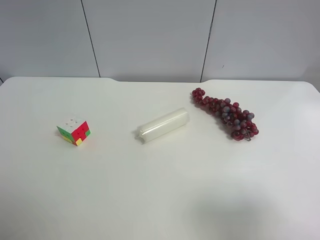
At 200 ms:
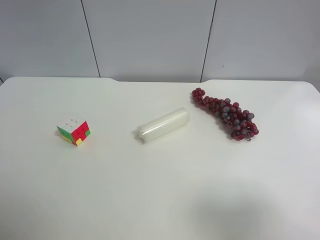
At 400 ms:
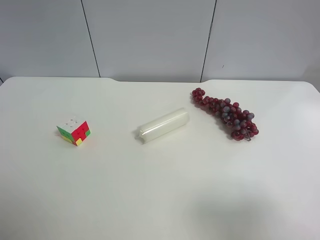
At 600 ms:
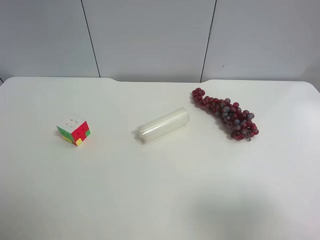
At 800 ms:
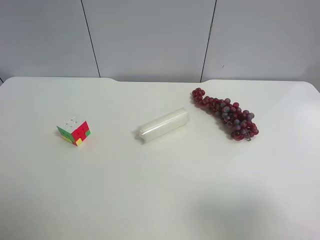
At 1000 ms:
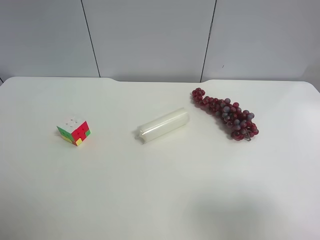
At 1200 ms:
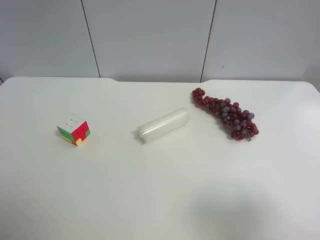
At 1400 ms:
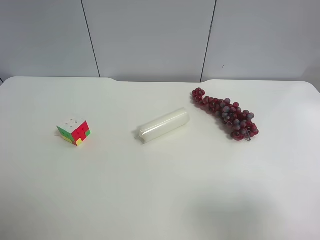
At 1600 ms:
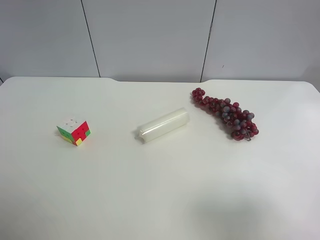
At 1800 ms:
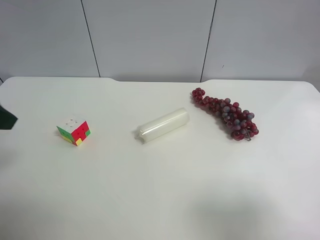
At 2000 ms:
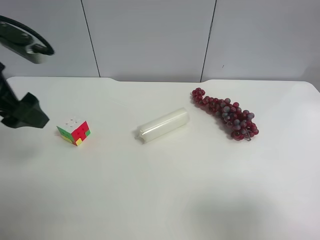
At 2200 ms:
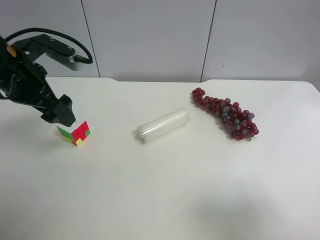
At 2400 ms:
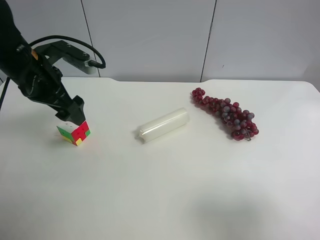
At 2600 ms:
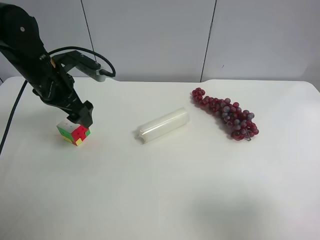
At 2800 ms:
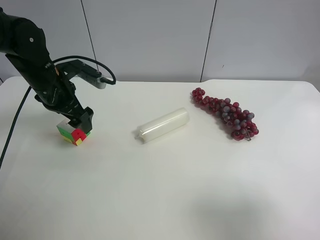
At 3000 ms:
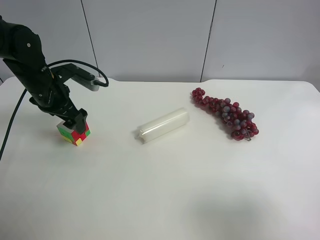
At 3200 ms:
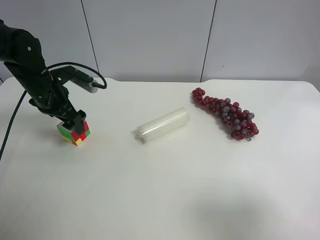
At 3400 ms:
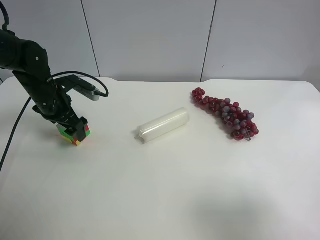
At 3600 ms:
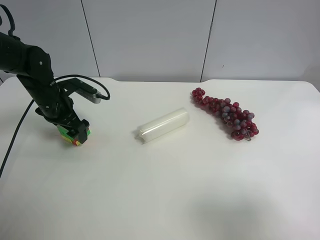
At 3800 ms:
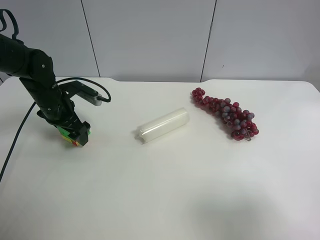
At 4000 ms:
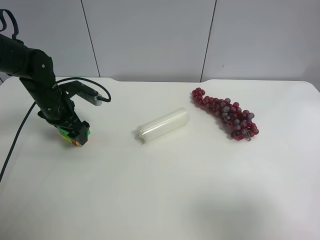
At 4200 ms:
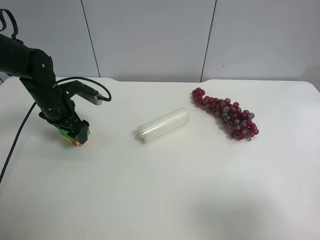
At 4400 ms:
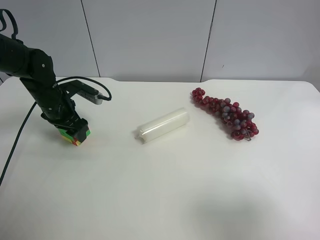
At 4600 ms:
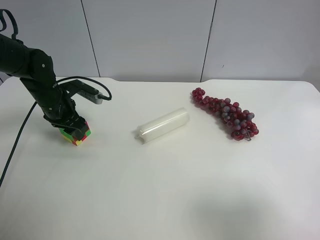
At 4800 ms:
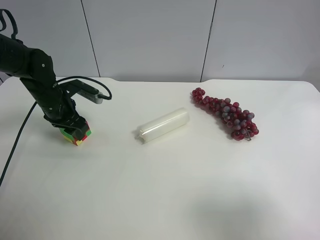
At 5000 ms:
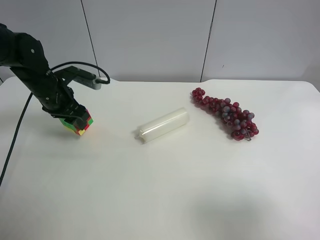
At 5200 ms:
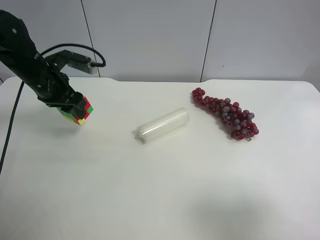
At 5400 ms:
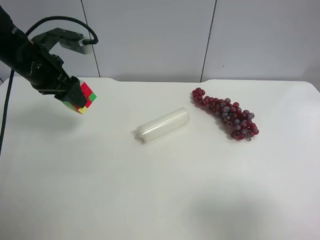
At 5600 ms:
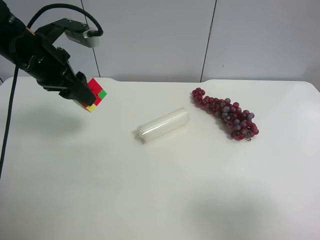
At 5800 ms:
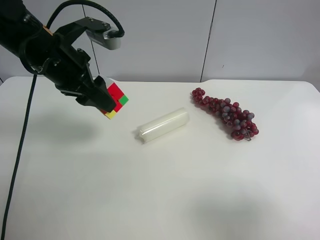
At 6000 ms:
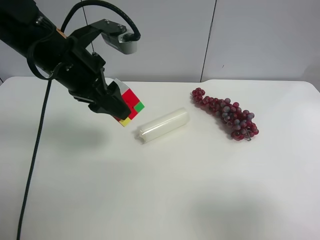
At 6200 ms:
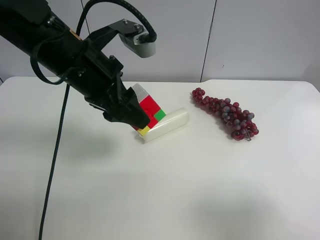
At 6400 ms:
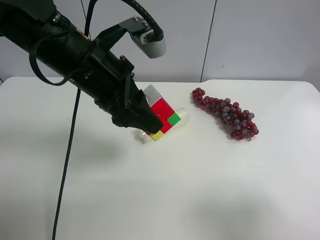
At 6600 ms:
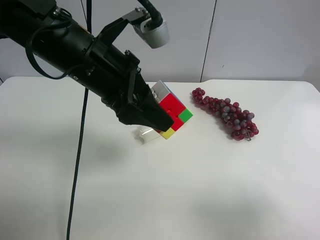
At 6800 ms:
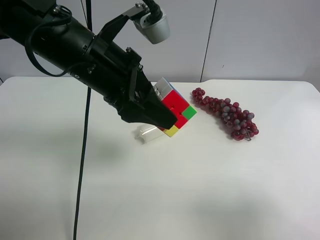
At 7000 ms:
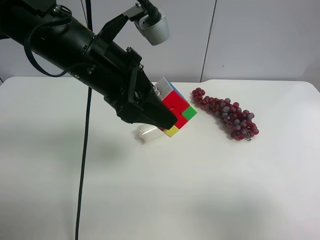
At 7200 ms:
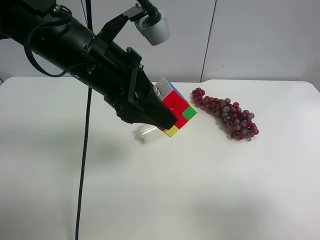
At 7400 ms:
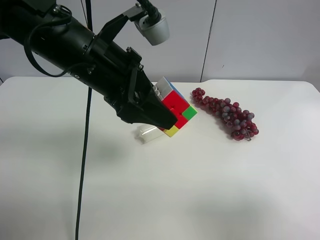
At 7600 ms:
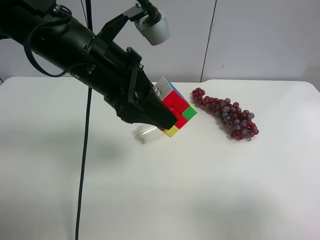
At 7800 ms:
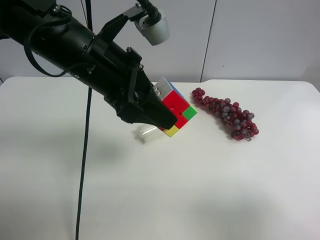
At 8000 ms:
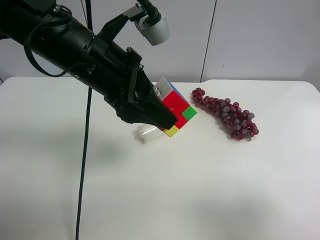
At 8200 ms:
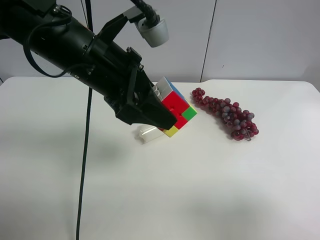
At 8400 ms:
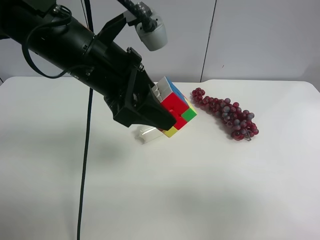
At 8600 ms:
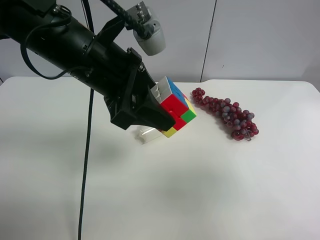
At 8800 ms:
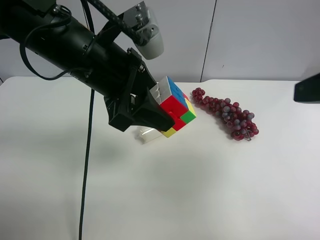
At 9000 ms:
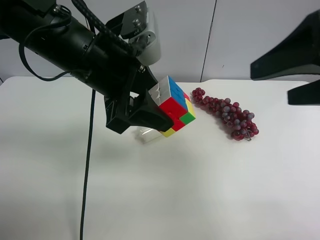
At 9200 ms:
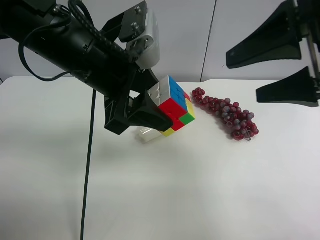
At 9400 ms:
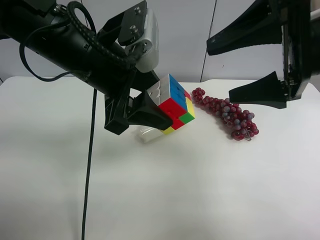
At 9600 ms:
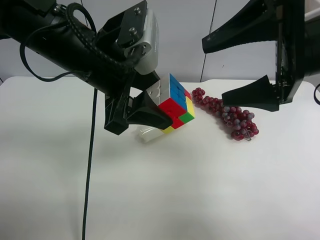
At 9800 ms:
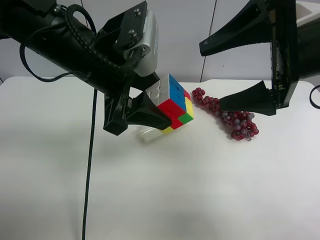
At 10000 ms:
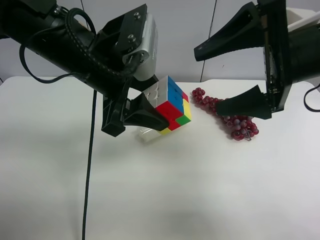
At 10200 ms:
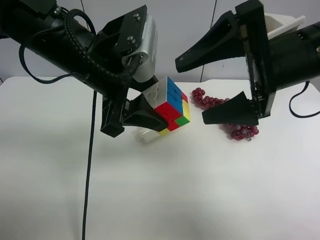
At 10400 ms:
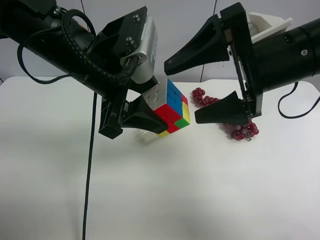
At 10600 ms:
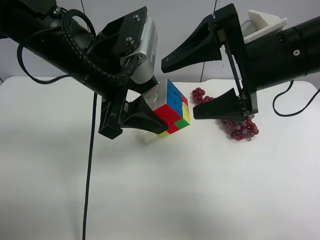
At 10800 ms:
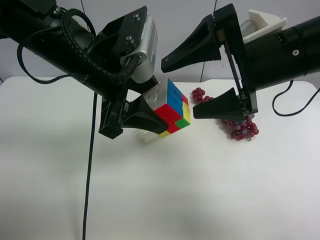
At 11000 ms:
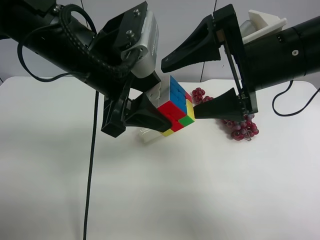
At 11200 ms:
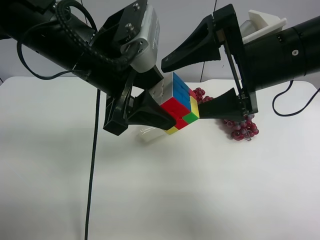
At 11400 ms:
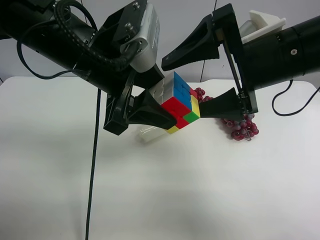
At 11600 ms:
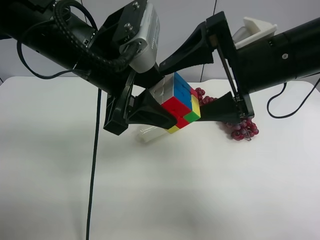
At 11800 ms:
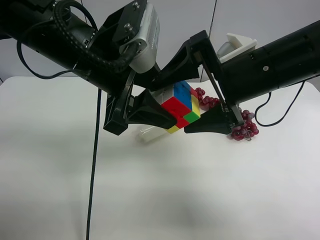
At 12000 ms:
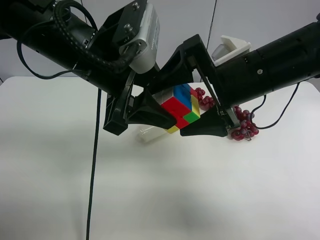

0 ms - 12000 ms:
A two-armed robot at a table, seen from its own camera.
Task of the whole recording: use the left gripper to pick up the item and transfer it from the left gripper to the right gripper.
1600 ms - 3000 ms: The left gripper shifts about 30 cm forward and downward.
3000 ms - 4400 ms: The left gripper closes up.
4400 ms - 6000 ms: The left gripper travels upward, to the right and backward by roughly 20 cm.
6000 ms - 7600 ms: The left gripper changes place by some 5 cm.
7600 ms - 9000 ms: The right gripper heads forward and upward, covering approximately 15 cm.
9000 ms - 10400 ms: The right gripper heads to the left and forward, covering roughly 10 cm.
10400 ms - 12000 ms: The grippers stay close to where they were, moving slightly.

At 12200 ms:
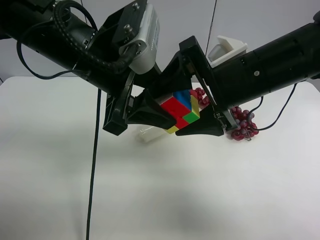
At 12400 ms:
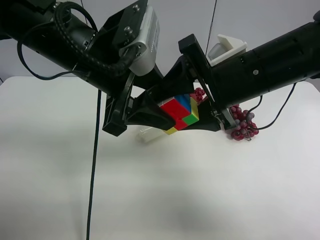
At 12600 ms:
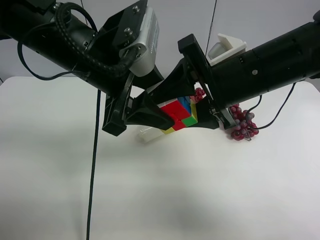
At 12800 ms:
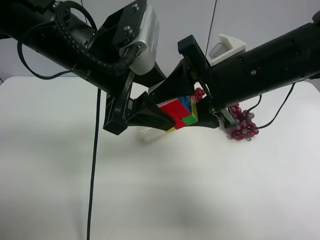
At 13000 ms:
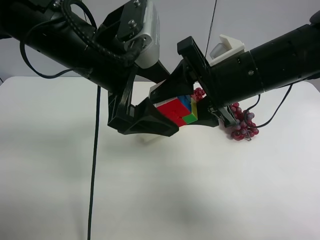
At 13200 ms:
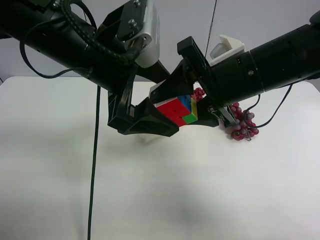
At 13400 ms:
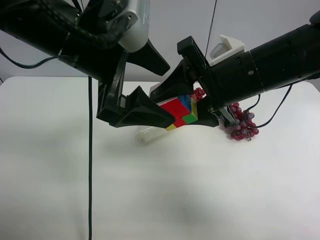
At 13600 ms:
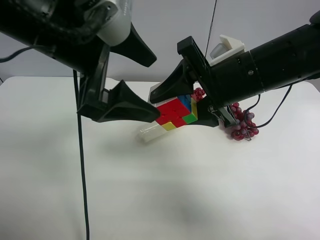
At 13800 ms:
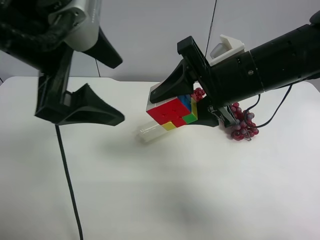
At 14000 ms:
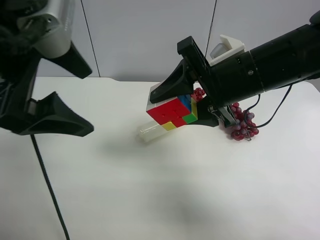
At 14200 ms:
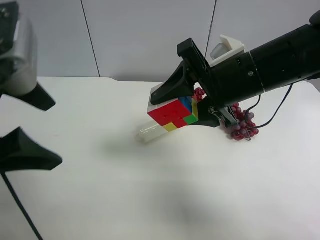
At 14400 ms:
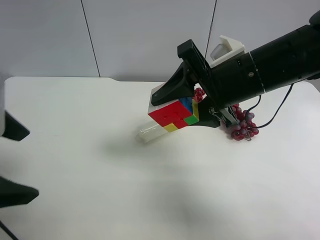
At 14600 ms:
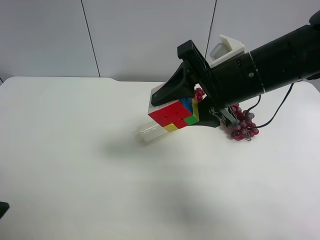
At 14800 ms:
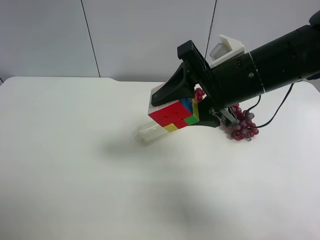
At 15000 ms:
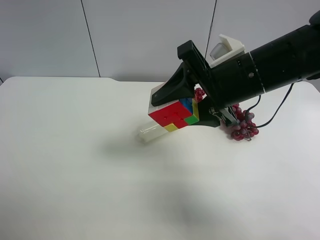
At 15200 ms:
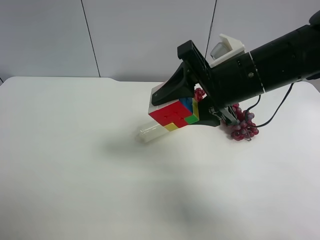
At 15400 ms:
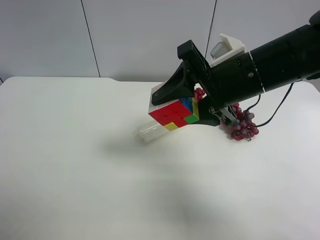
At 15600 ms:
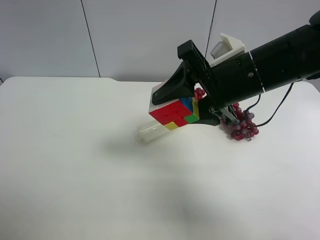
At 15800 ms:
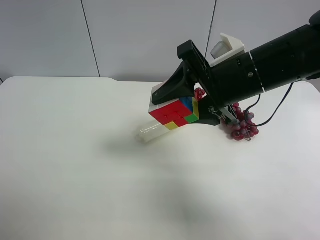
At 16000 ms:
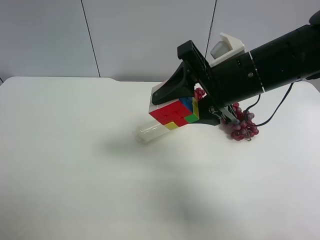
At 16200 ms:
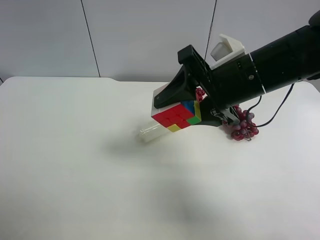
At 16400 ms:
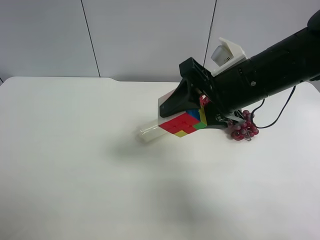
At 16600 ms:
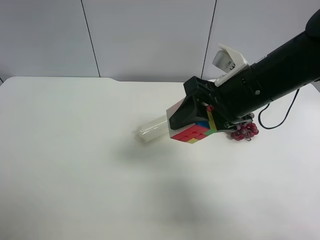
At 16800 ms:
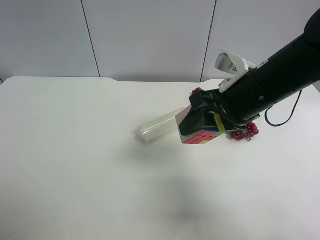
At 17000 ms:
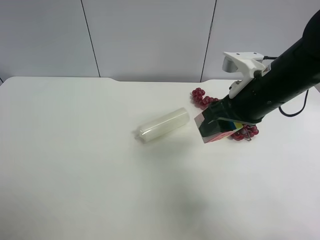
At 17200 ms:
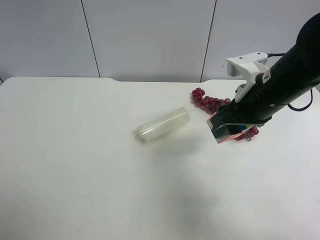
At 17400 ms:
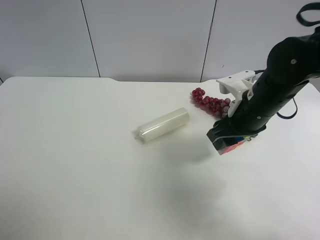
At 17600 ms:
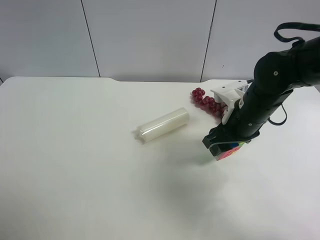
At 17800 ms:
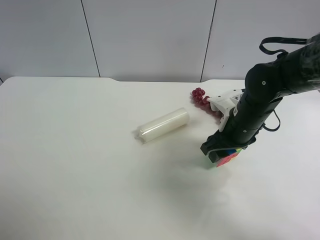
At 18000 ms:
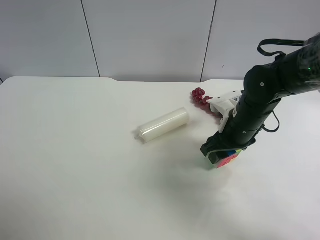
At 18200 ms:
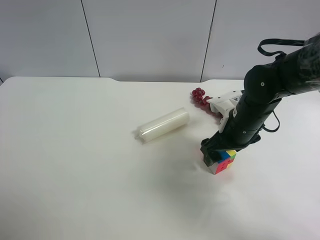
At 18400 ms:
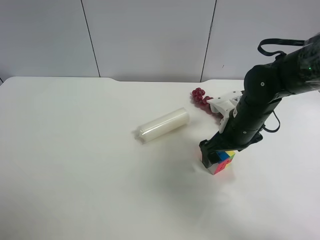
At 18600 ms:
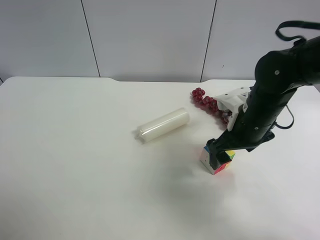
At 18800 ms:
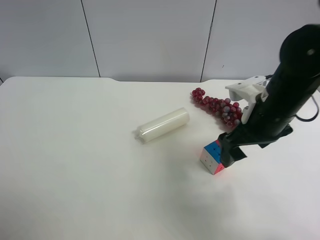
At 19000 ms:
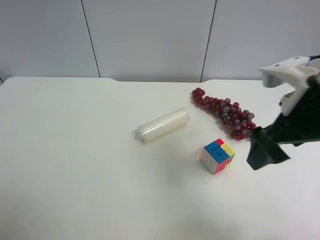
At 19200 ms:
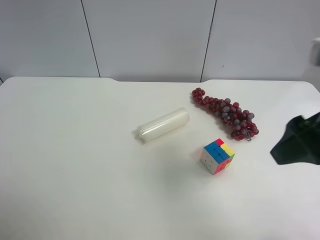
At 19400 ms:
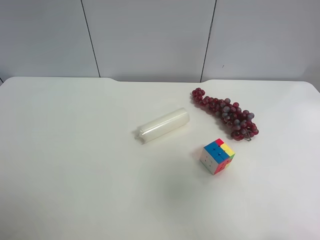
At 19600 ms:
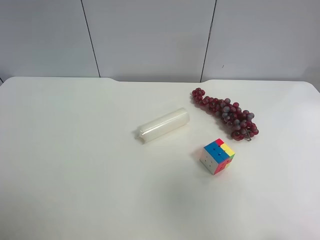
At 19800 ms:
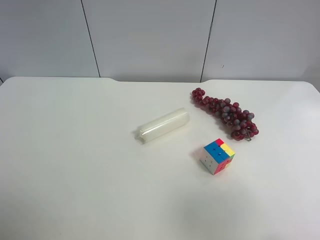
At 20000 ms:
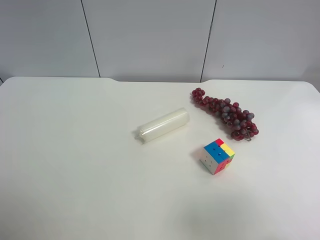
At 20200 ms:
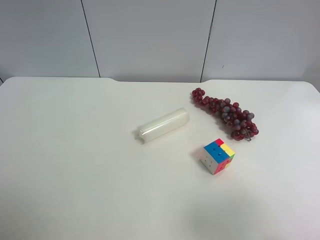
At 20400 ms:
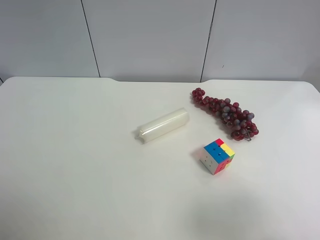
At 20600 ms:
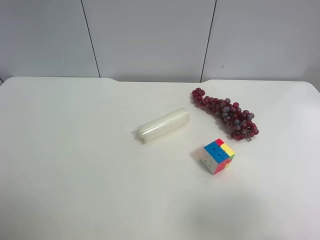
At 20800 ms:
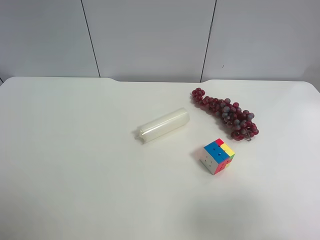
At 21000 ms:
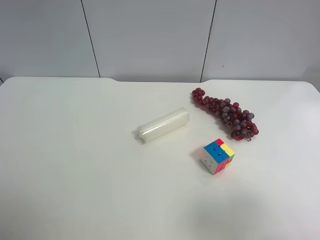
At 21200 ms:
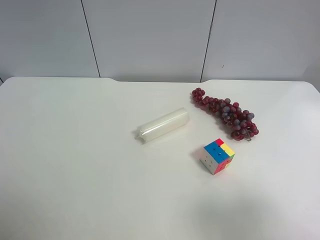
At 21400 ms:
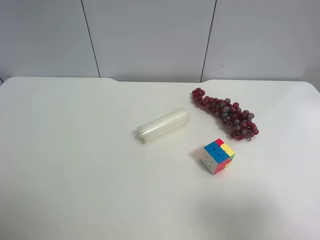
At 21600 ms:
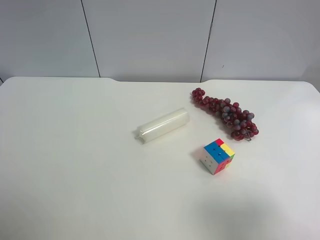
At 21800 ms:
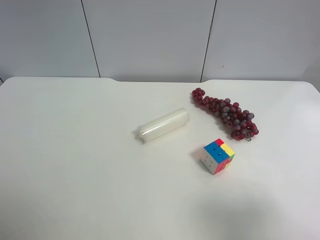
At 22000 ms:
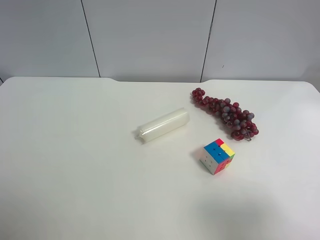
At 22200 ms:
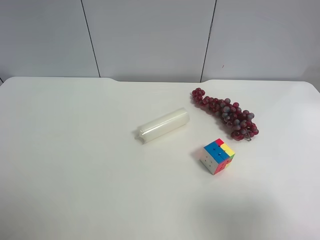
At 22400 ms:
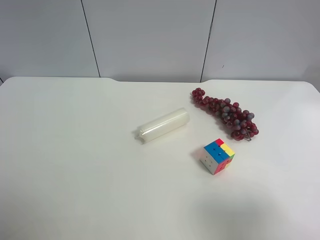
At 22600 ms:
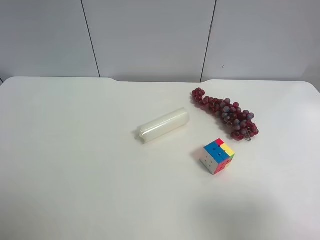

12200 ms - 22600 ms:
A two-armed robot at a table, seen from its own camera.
Task of the whole recording: use the left gripper to pick up the item and transfer it from the left gripper to the right gripper.
12200 ms - 13600 ms: The left gripper moves roughly 5 cm, and opens. Meanwhile the right gripper closes.
13600 ms - 15200 ms: The left gripper is displaced to the left and backward by approximately 30 cm.
16600 ms - 18200 ms: The right gripper is displaced downward by roughly 10 cm, and opens up.
18200 ms - 19600 ms: The right gripper goes about 35 cm backward, upward and to the right.
19600 ms - 21200 ms: The right gripper goes some 10 cm downward.
